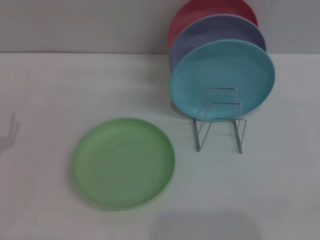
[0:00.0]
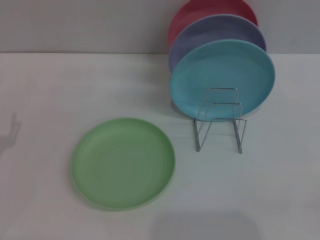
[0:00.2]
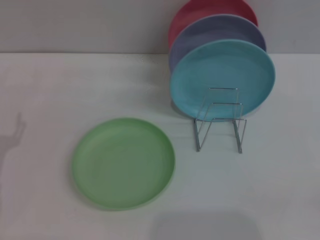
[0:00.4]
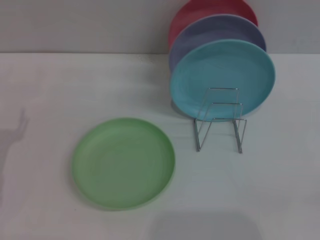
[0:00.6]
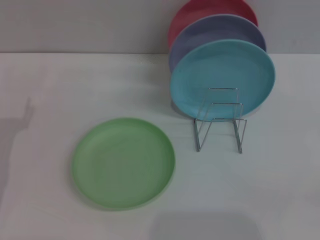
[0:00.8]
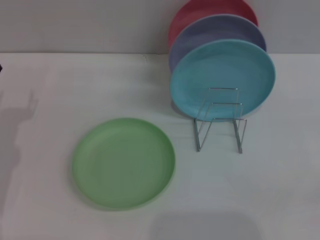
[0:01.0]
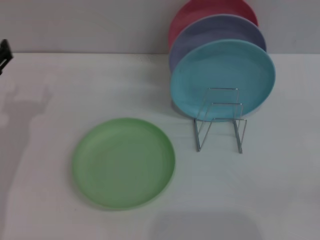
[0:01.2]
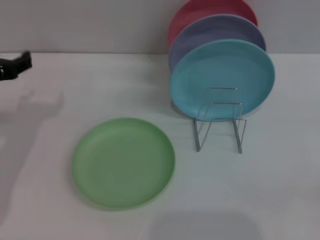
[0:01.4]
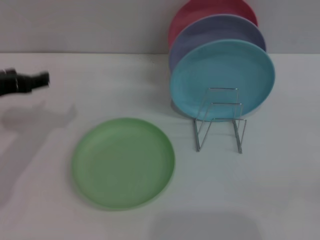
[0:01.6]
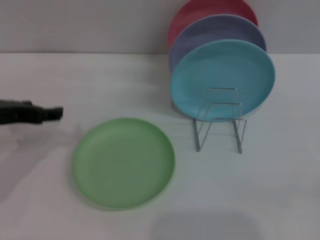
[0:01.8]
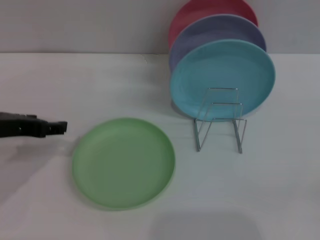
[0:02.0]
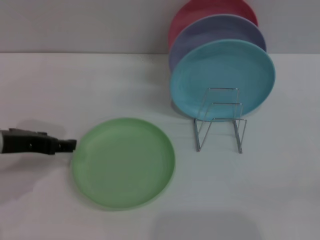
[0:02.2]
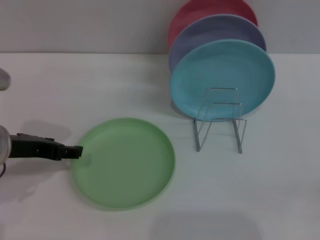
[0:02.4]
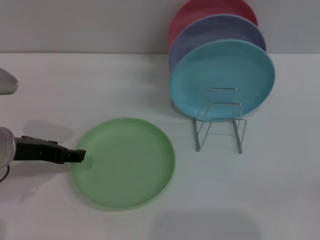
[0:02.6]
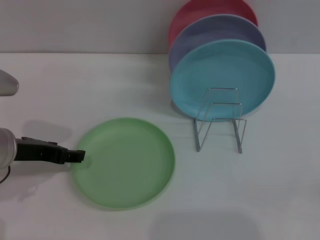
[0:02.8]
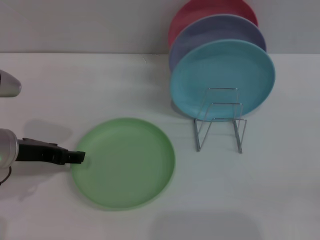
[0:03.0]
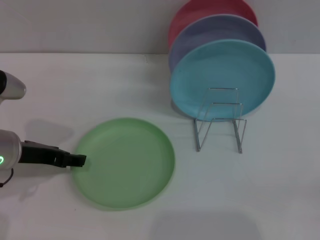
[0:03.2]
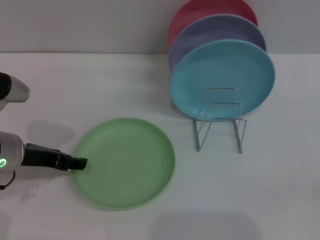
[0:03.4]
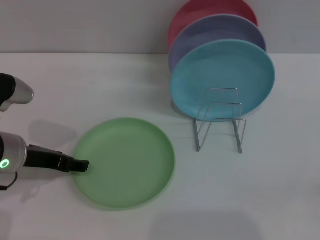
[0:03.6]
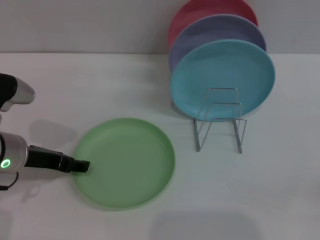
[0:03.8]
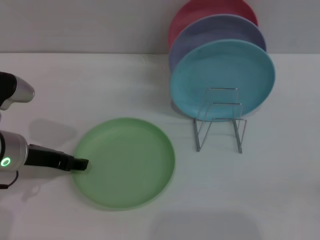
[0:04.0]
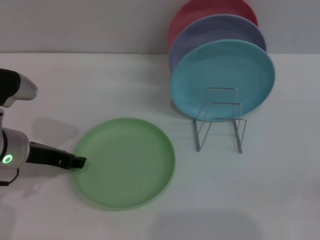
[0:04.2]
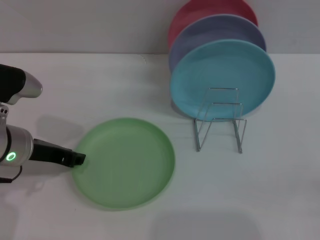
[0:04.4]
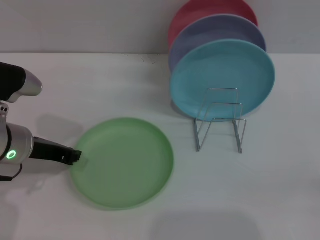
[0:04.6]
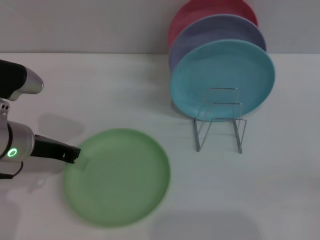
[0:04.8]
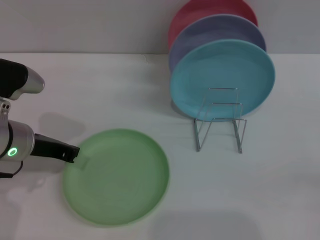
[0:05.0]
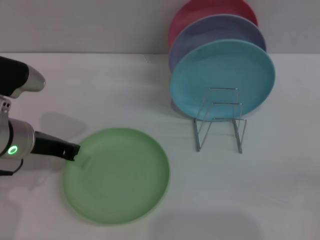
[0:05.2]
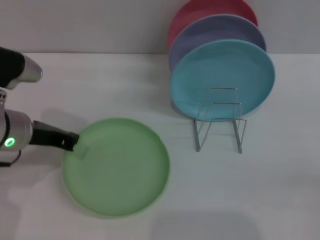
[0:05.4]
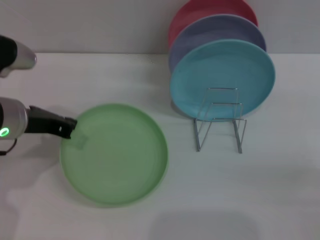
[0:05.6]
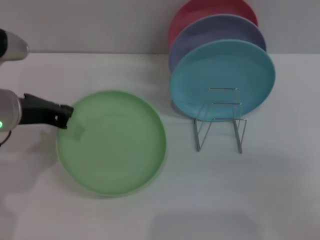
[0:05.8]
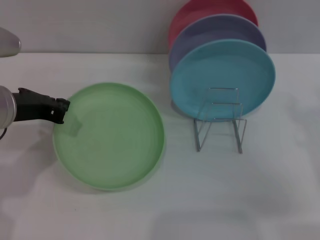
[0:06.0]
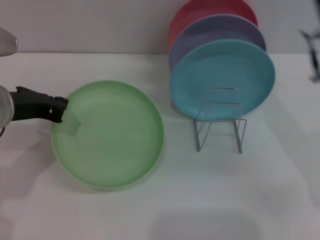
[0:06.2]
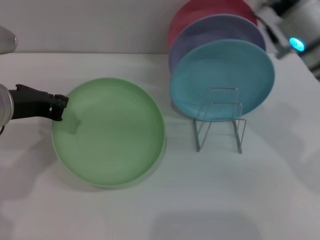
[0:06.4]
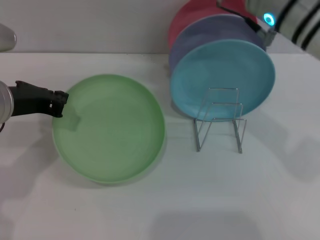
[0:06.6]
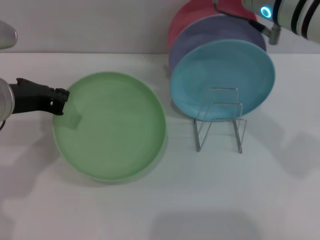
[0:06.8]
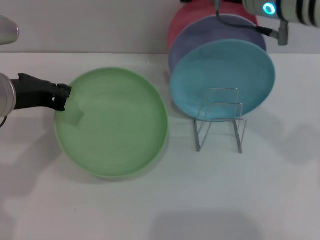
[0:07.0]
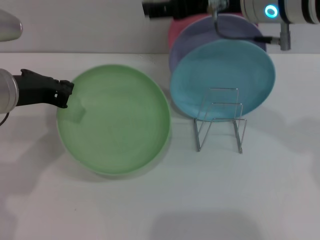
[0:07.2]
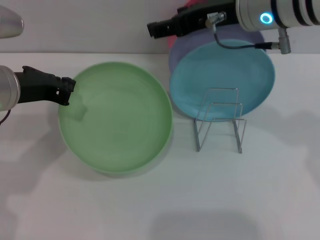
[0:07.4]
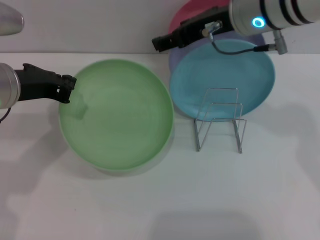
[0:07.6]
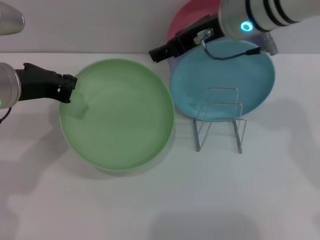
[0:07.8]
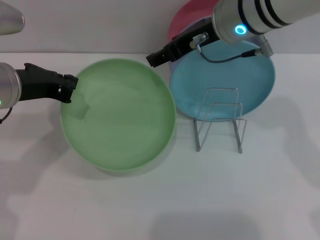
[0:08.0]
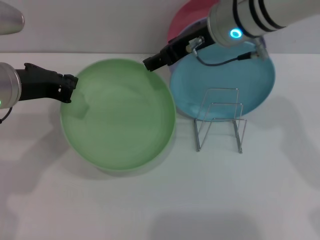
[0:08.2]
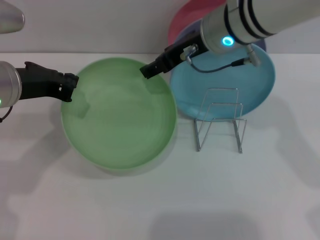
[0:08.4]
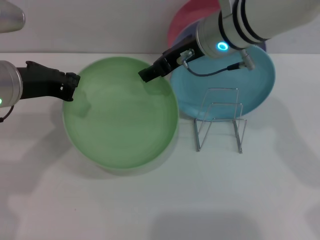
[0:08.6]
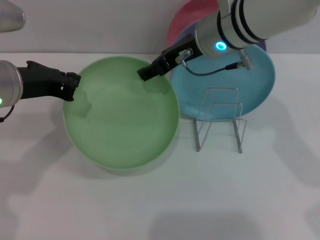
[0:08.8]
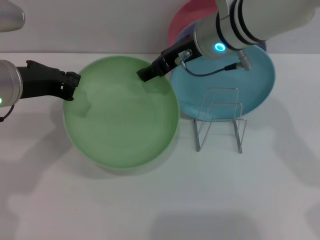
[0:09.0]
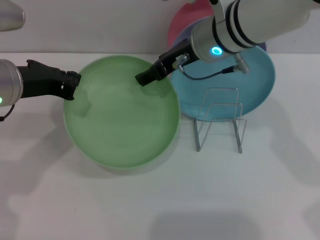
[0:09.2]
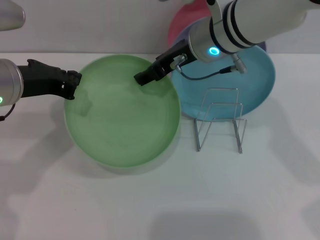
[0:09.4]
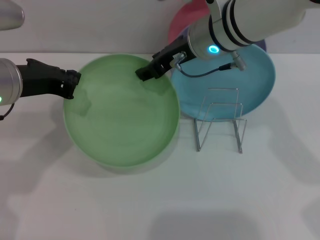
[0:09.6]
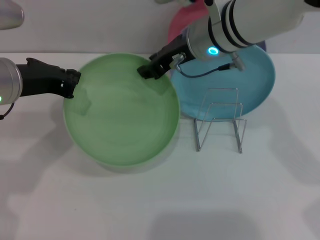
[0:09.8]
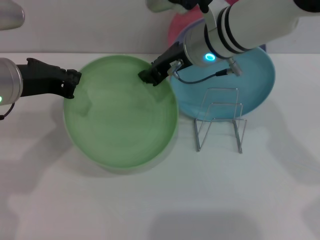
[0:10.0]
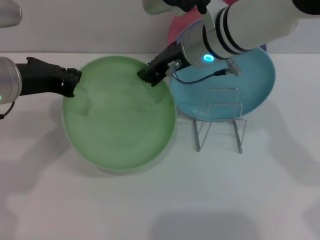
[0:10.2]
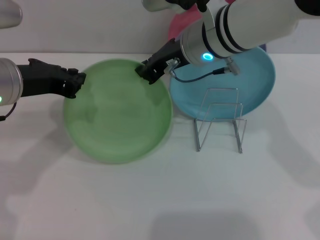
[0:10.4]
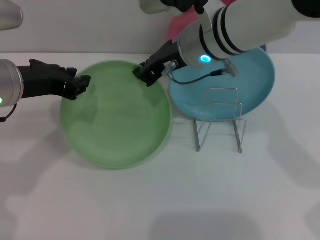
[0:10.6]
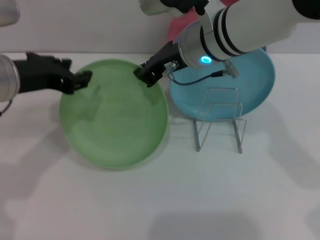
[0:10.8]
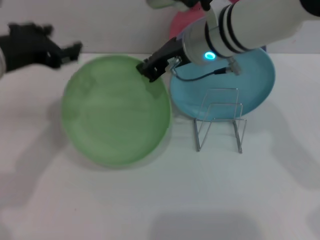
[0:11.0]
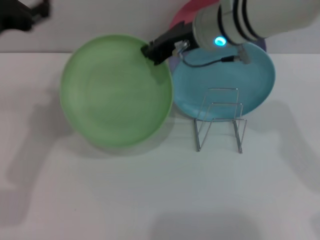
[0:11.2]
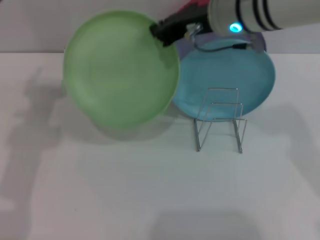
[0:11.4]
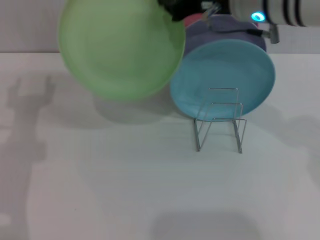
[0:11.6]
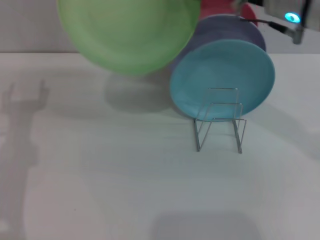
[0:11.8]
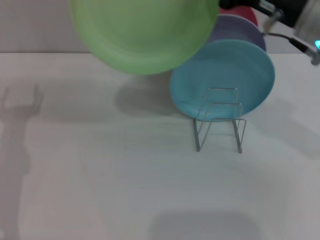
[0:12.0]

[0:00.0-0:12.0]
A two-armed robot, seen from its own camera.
Task of the whole recording: Grip the plate with one hand, pass it to the other, then set it on the shelf.
Step, 0:00.0 to 0:06.2: Pick up the plate with the left gripper.
Step, 0:06.4 to 0:11.0: Pass the plate from the left gripper to the right gripper.
0:00.0 to 0:01.6: The left gripper heads upward and forward, covering some 15 cm.
0:01.6 to 0:03.0: The left gripper moves downward, roughly 5 cm.
0:03.0 to 0:04.4: The left gripper closes up.
0:04.4 to 0:06.0: The left gripper moves upward, approximately 5 cm, and closes up, while the right gripper is displaced forward, to the left and upward by roughly 20 cm.
0:06.0 to 0:07.6: The right gripper moves to the left, upward and forward, some 20 cm.
0:07.6 to 0:09.0: The right gripper shifts by about 5 cm.
0:09.0 to 0:10.4: The right gripper closes its fingers.
0:10.4 to 0:12.0: The left gripper goes some 10 cm downward and to the left, and opens its fingers, while the right gripper shifts some 15 cm to the right and backward.

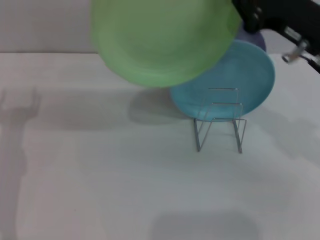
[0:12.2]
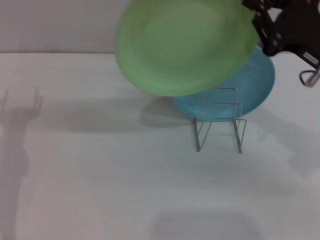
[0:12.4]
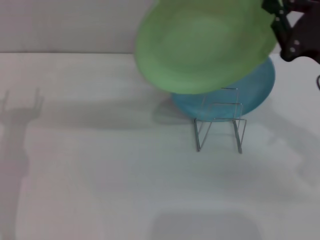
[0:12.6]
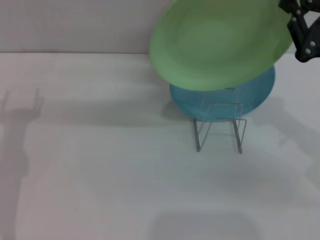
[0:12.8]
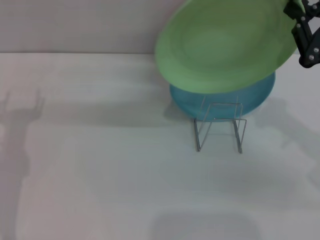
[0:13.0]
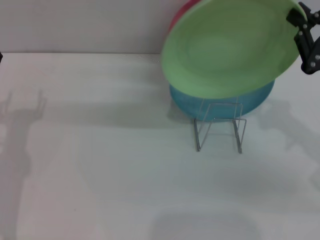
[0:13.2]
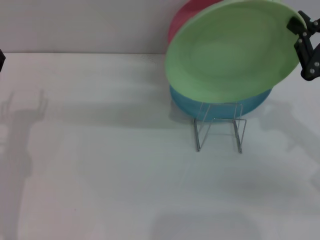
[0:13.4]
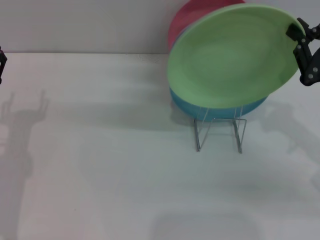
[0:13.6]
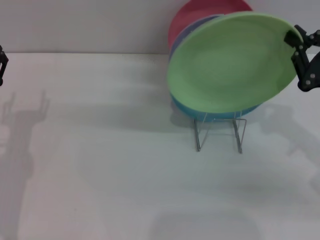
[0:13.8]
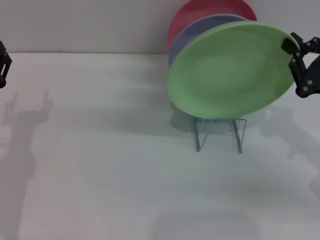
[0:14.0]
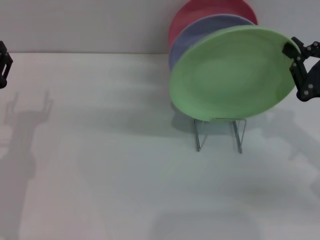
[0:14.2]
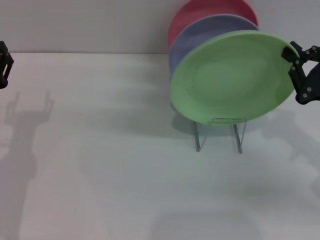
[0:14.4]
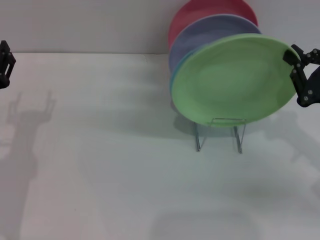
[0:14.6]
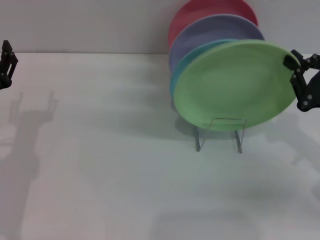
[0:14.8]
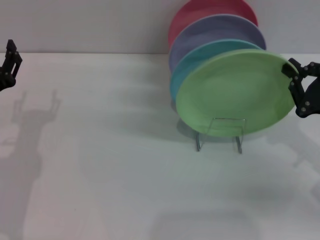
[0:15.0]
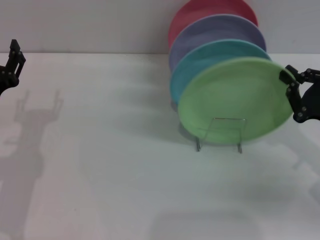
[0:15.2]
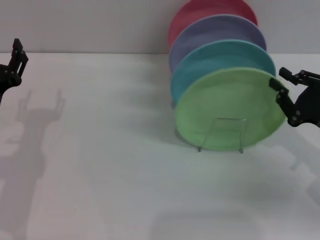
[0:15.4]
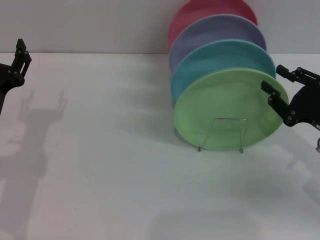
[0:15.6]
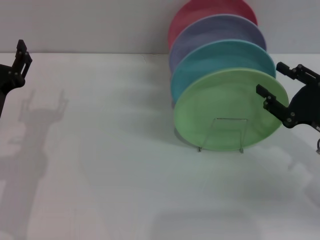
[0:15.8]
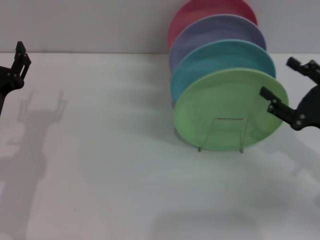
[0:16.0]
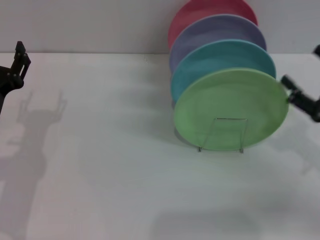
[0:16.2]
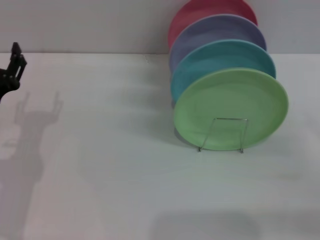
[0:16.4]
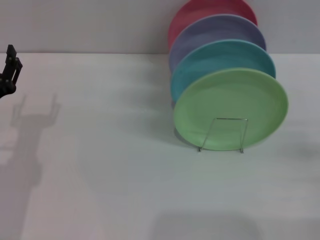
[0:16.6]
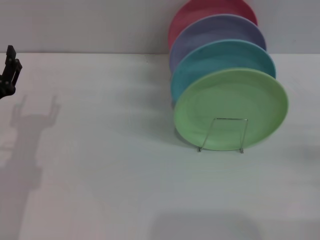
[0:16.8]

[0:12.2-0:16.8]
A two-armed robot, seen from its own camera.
Task of the whole recording: Grip the plate with one hand, pass it to the other, then set it on the shelf.
Step, 0:12.2 to 0:15.8: Place the plate on the shelf with the right gripper.
0:12.2 to 0:13.8: The right gripper shifts some 10 cm downward and to the right.
0:13.8 to 0:15.2: The grippers move only a little.
0:15.2 to 0:16.8: The right gripper moves to the right and backward, some 10 cm, and opens.
